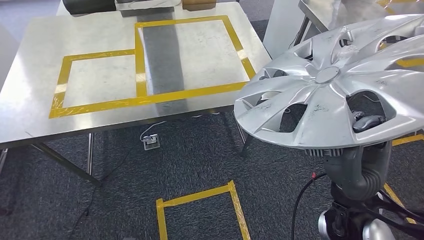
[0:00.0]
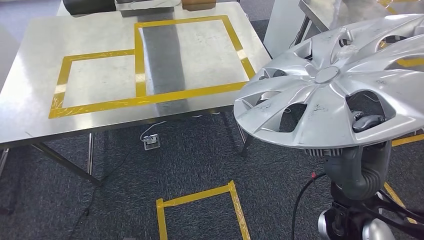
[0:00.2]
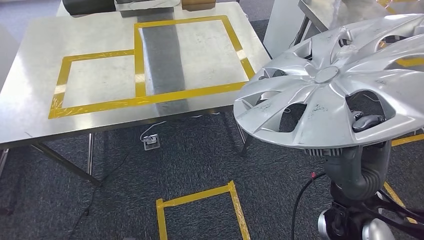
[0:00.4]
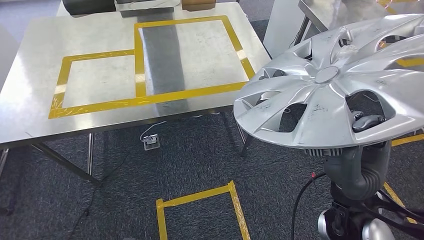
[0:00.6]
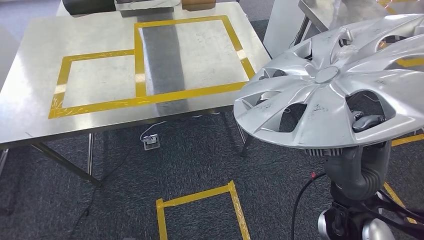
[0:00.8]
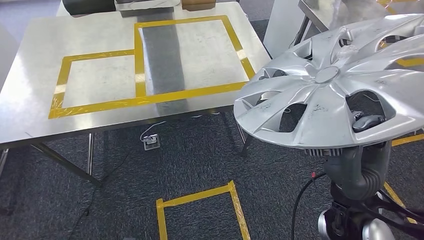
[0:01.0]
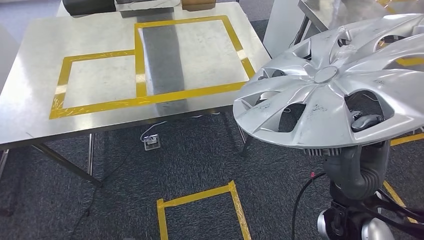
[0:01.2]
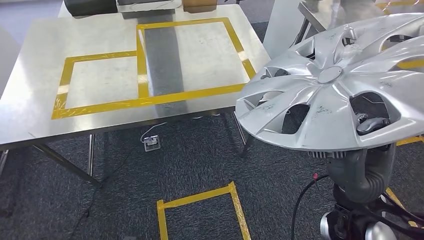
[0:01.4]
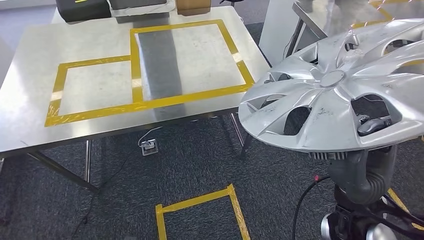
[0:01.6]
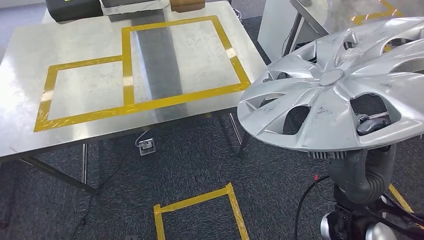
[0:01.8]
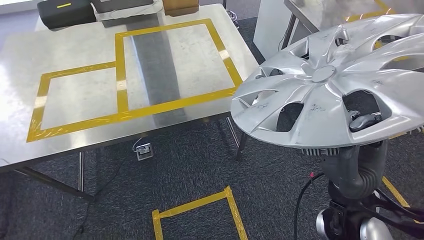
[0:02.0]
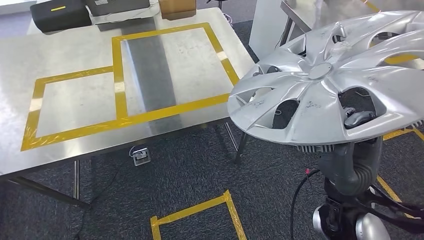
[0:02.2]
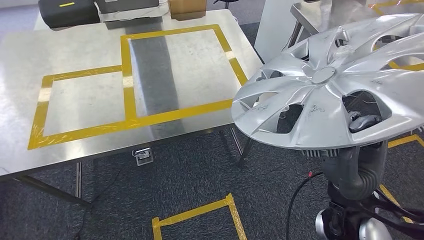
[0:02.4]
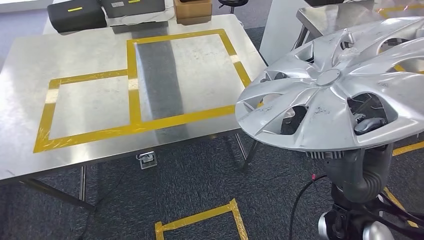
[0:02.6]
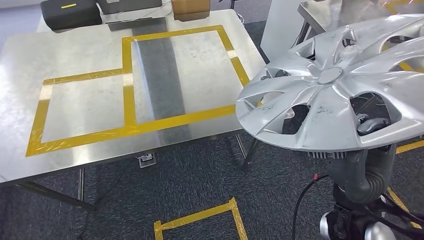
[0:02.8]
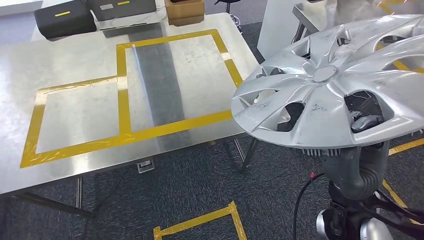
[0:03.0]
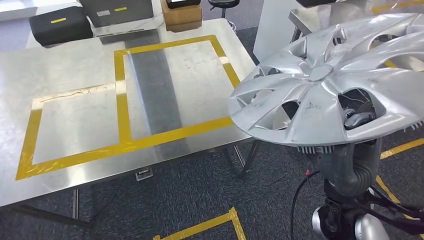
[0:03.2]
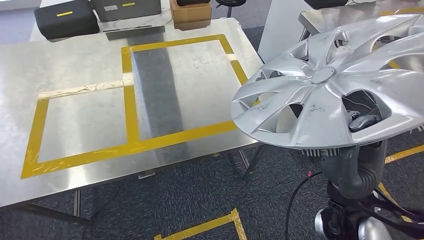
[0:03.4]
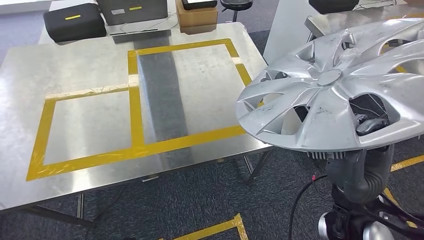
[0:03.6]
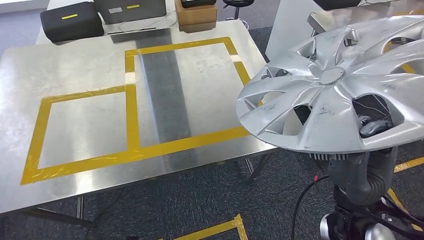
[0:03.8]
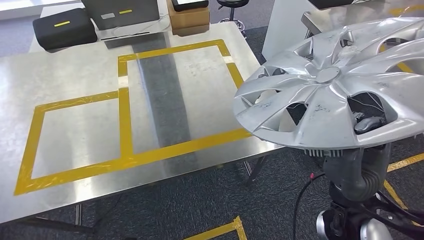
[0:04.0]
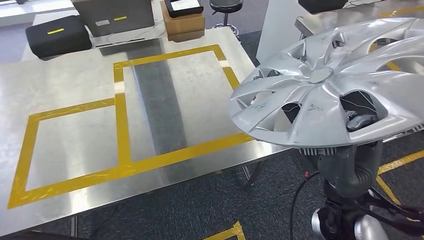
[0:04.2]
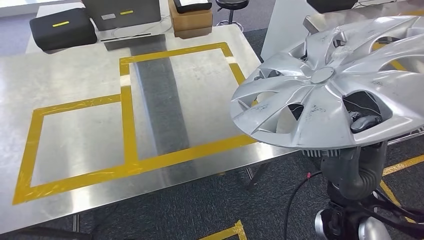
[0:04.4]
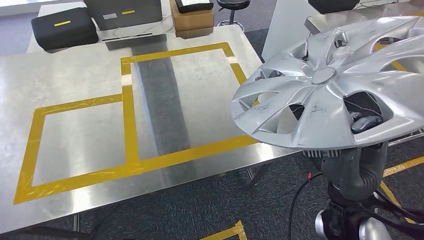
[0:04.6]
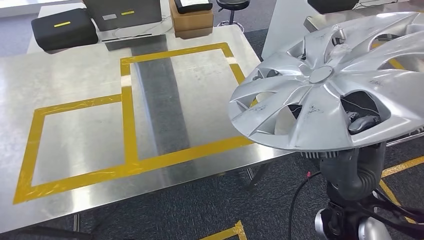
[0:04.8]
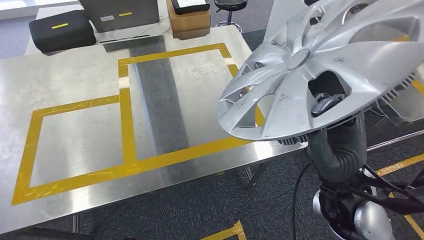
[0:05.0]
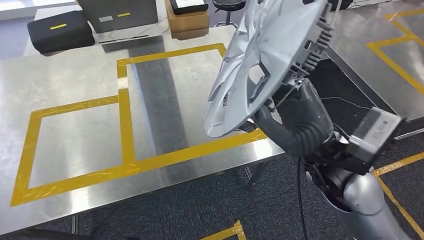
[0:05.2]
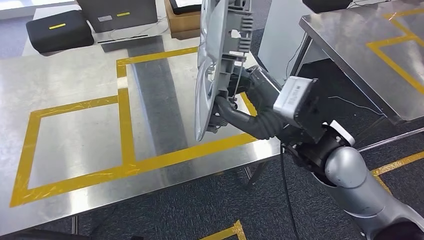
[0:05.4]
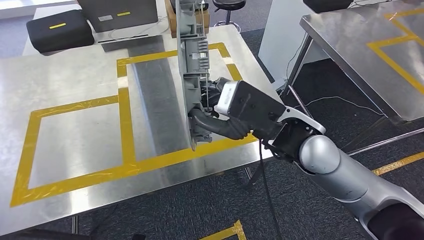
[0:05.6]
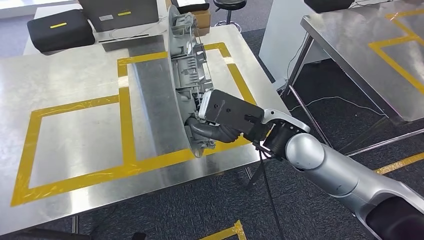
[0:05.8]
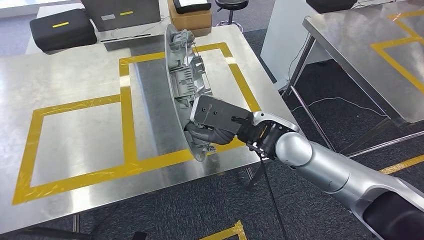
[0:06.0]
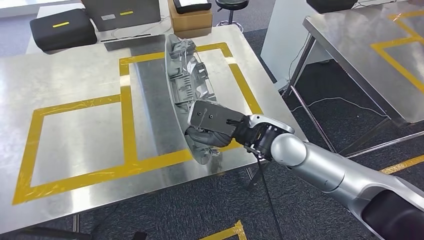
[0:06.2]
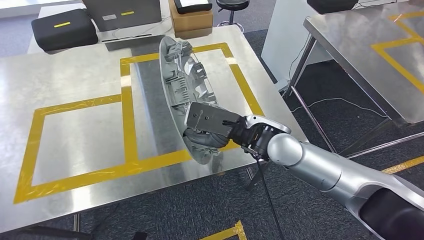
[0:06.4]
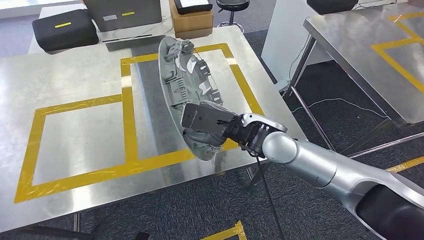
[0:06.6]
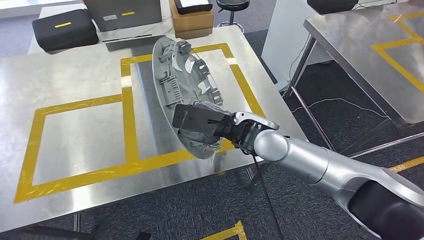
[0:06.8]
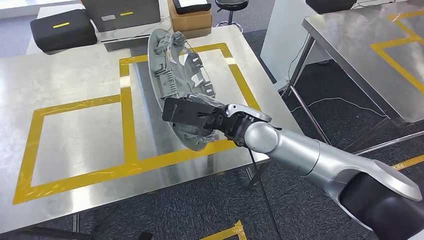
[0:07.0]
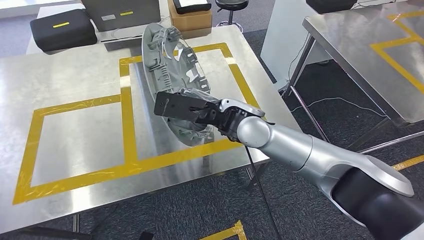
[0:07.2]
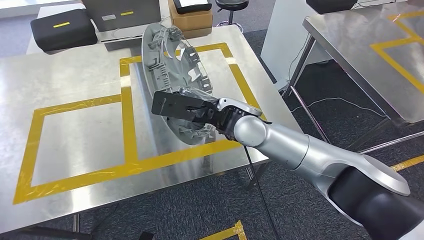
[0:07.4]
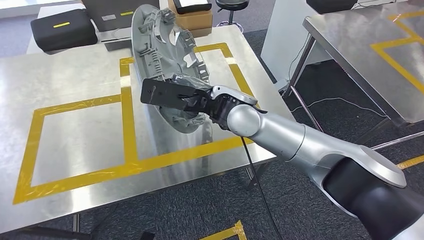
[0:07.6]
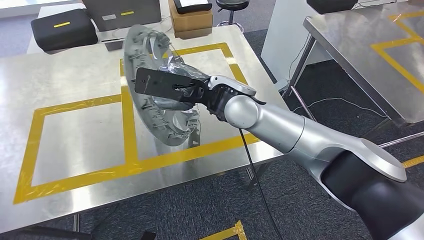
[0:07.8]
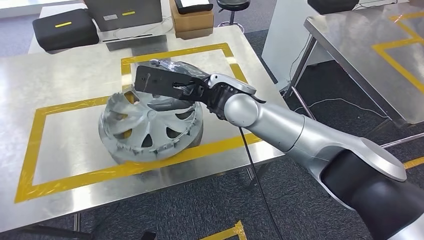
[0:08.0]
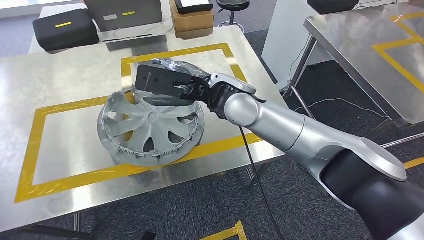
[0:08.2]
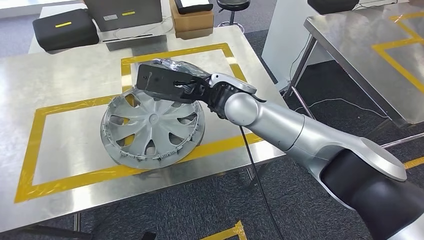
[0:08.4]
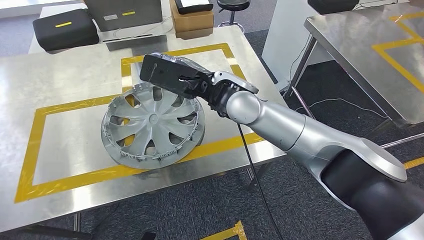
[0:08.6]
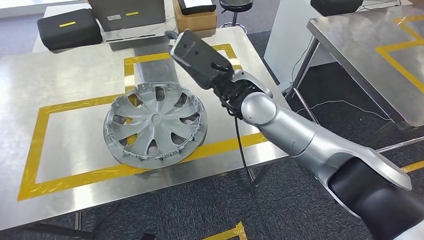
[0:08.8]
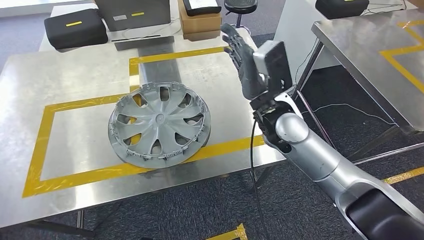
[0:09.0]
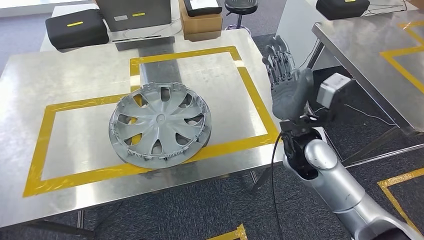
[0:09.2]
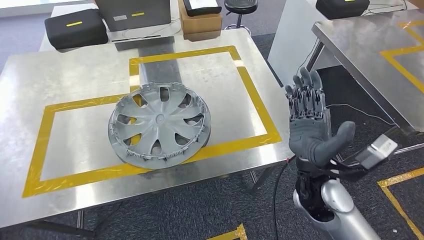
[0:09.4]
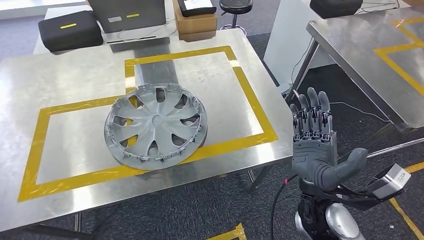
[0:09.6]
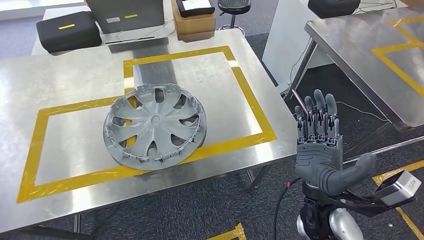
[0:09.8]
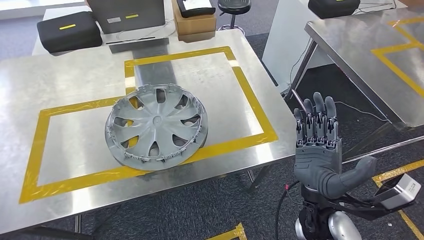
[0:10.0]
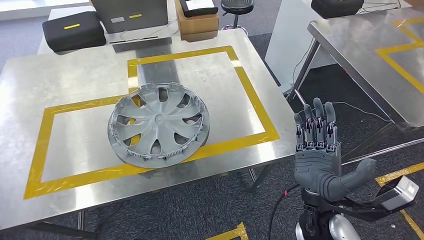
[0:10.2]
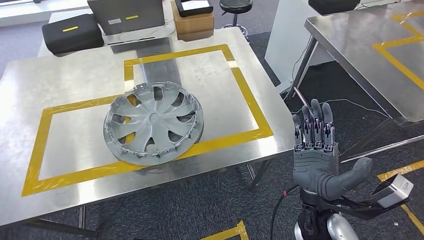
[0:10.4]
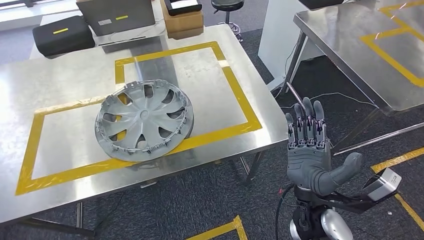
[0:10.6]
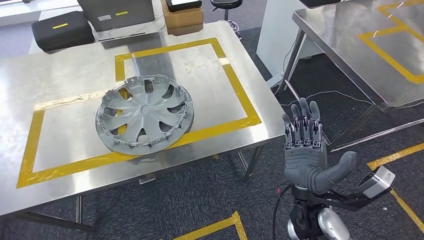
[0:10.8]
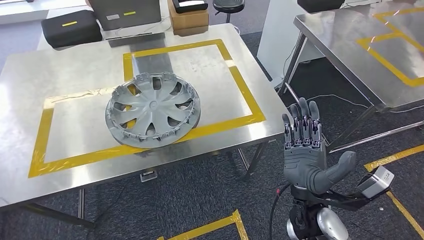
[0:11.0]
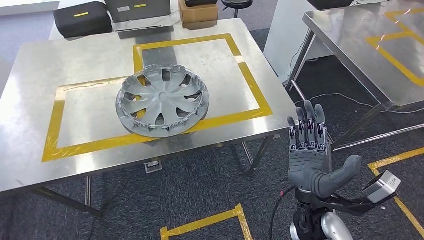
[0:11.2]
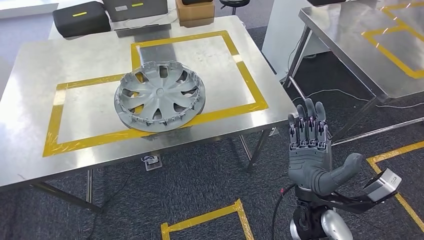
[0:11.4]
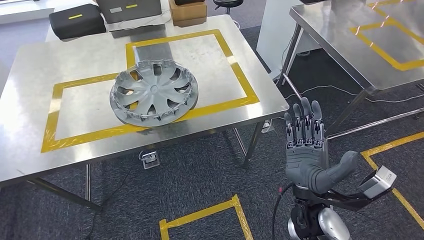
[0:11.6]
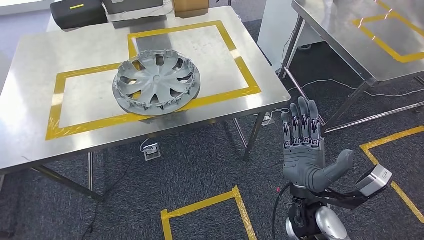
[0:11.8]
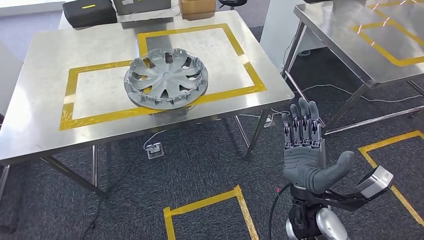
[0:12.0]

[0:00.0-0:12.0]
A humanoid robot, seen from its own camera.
Step, 0:00.0 to 0:11.2: Insert the small parts into the corresponding holes on the workbench.
0:06.0 to 0:07.6: The right hand shifts about 10 cm to the left and forward.

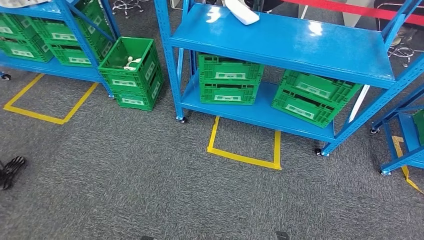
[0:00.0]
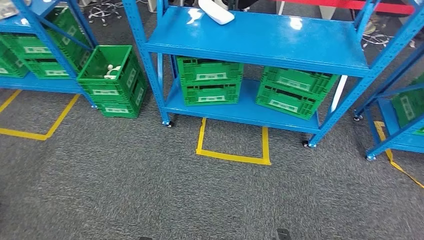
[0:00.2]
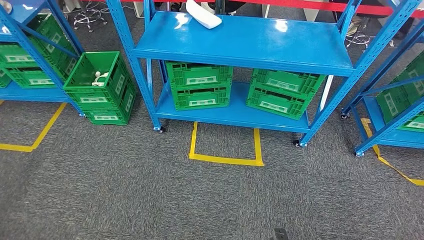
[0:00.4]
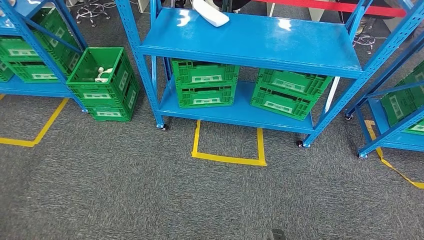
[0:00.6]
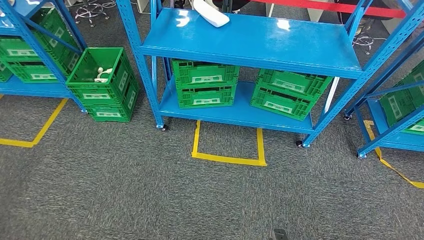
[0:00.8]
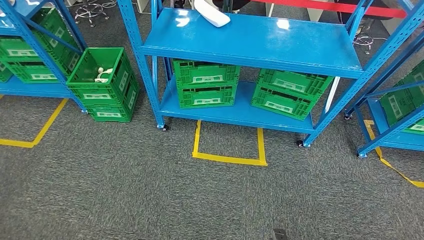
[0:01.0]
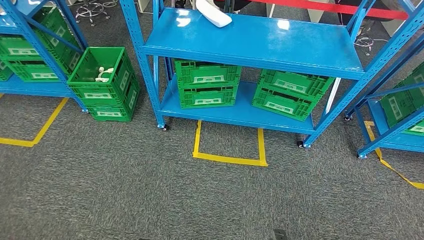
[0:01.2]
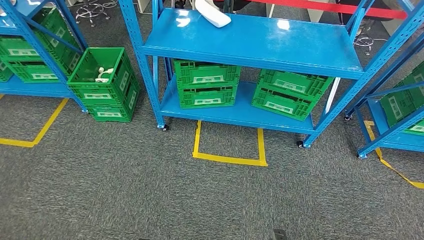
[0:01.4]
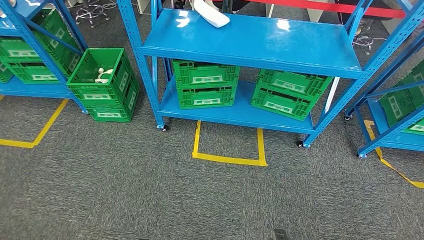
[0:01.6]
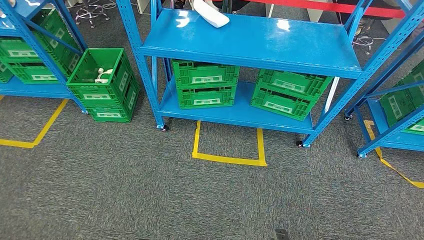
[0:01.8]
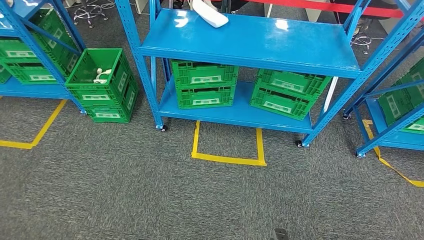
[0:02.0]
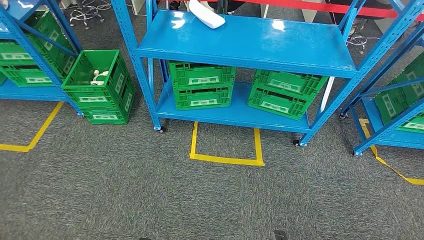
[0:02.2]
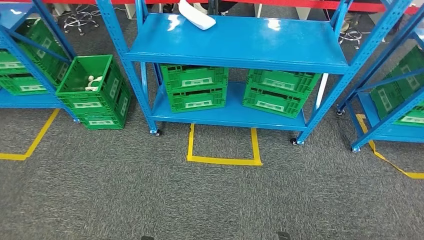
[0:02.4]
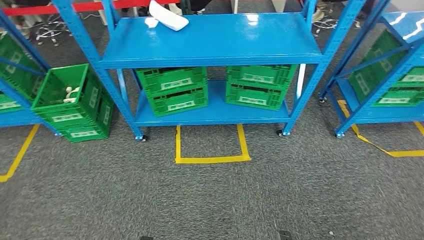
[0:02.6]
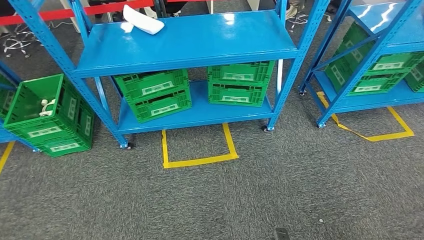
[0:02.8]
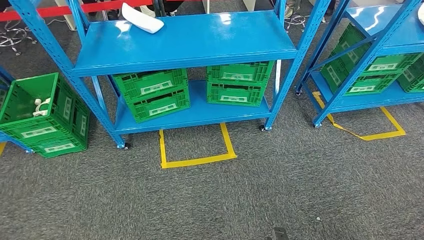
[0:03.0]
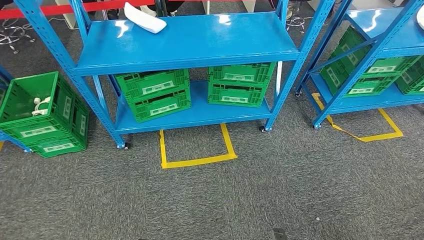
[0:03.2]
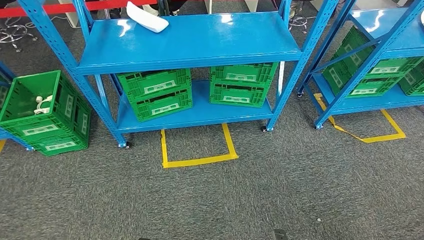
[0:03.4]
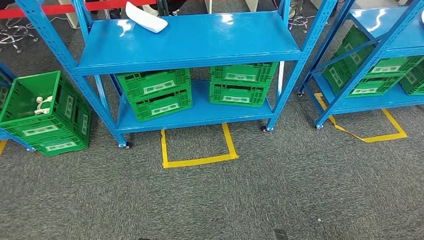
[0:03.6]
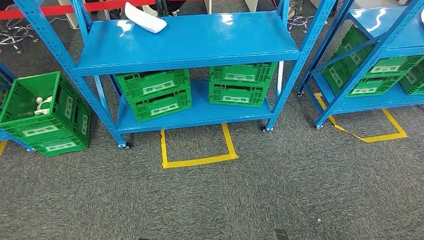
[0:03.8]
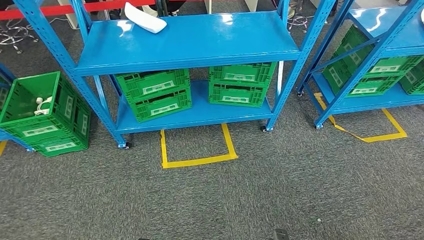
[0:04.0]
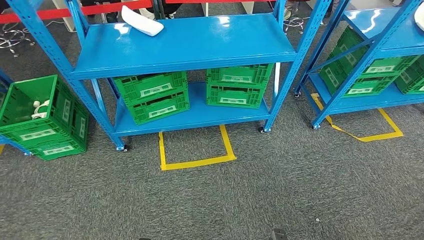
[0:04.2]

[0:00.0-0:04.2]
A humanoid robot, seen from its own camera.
Step, 0:00.0 to 0:04.2: Move to the initial position at the workbench.
0:02.8 to 0:04.2: Both hands stay put.

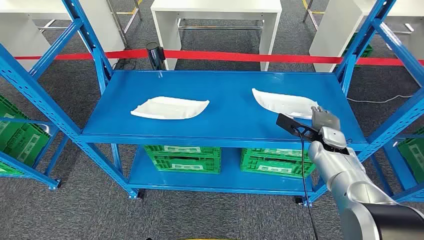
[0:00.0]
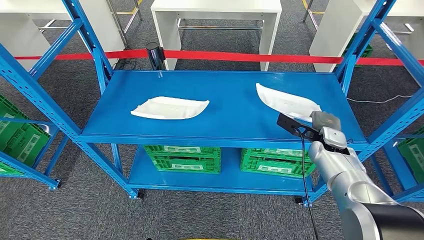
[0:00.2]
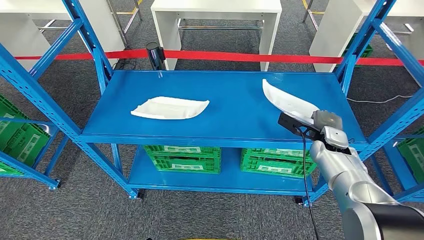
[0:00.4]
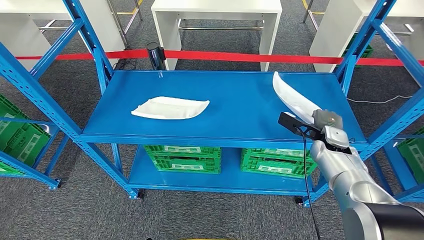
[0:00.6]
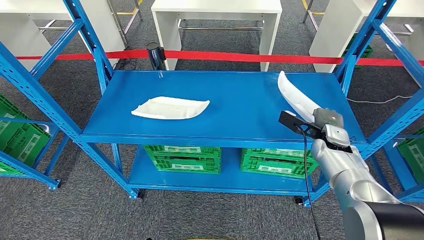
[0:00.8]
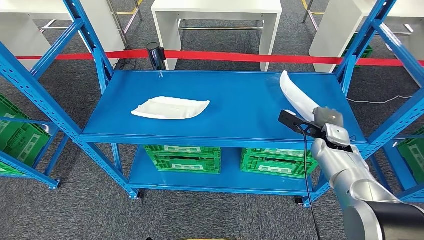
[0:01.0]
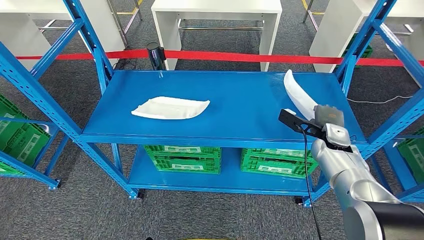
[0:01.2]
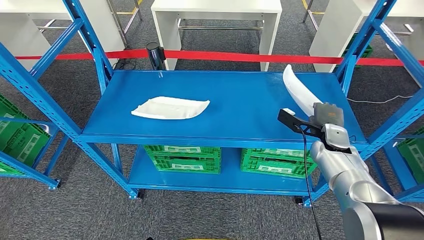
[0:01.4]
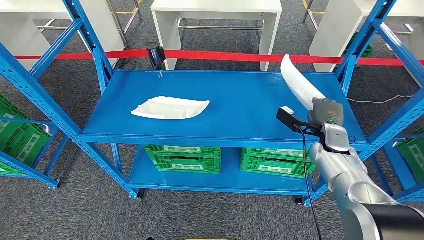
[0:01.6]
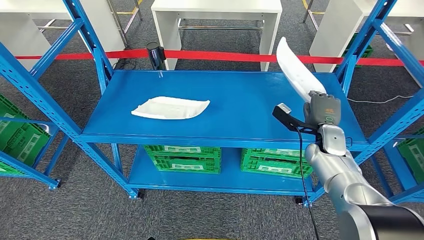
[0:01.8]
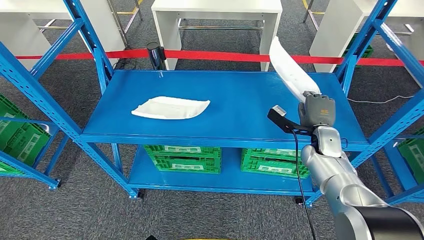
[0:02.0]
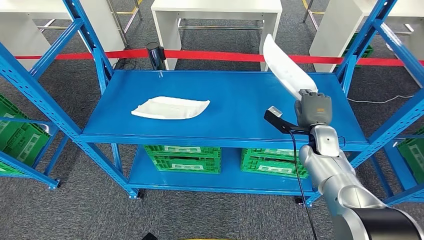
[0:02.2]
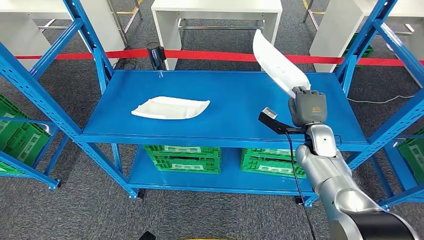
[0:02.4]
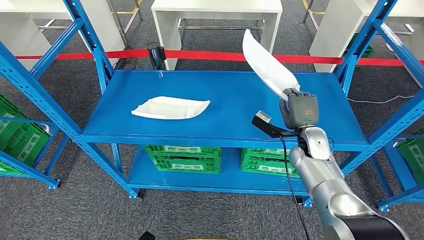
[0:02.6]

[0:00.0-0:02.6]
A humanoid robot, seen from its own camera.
0:01.2 to 0:02.6: The right hand shifts roughly 5 cm to the left.
